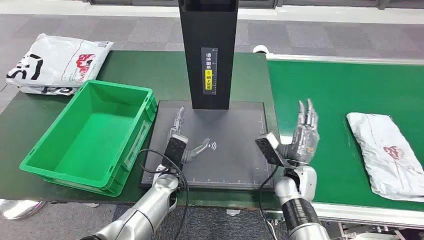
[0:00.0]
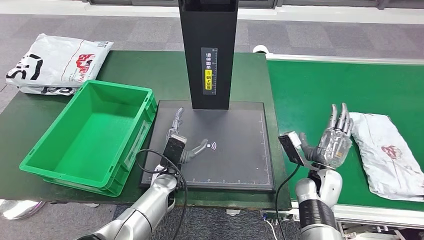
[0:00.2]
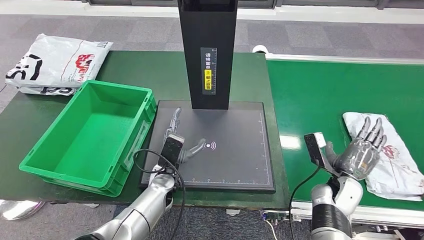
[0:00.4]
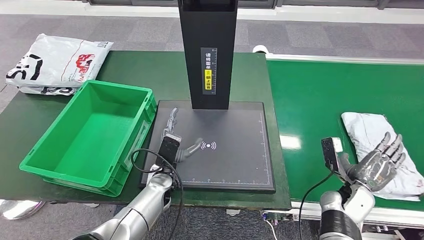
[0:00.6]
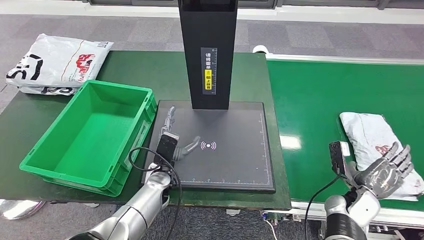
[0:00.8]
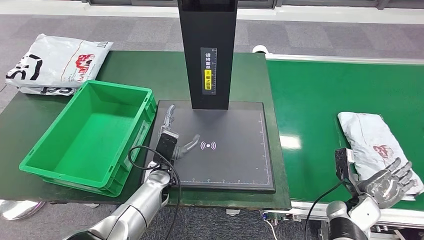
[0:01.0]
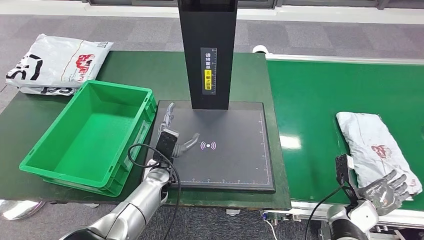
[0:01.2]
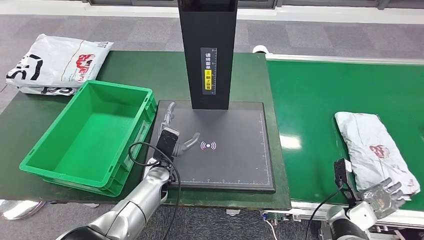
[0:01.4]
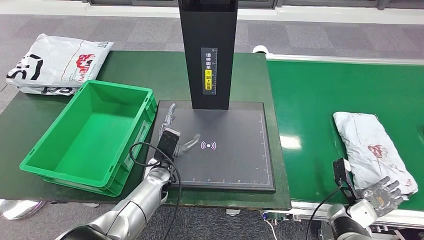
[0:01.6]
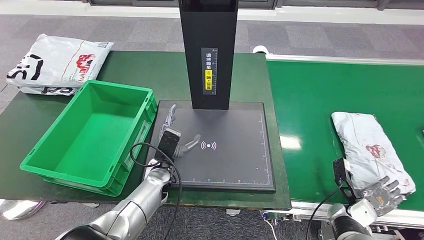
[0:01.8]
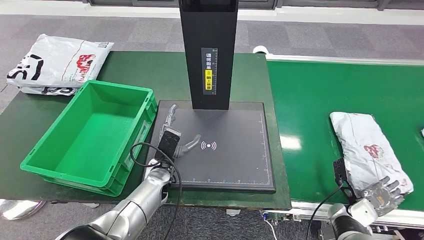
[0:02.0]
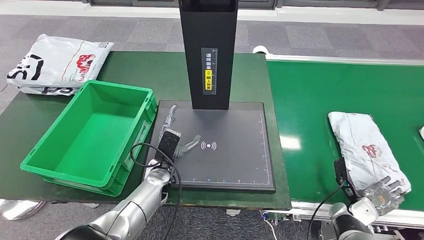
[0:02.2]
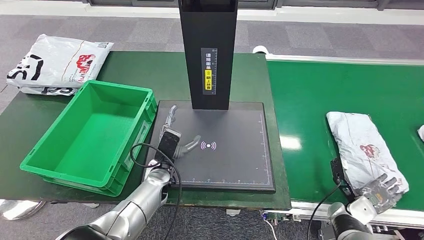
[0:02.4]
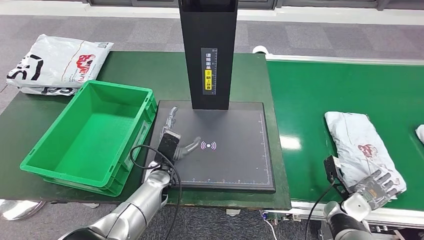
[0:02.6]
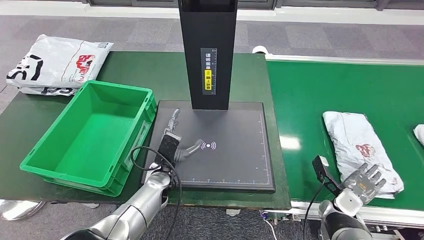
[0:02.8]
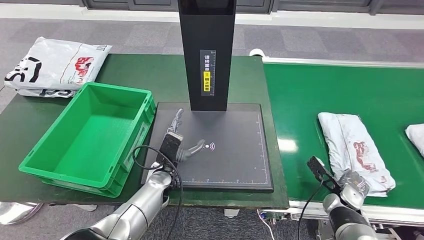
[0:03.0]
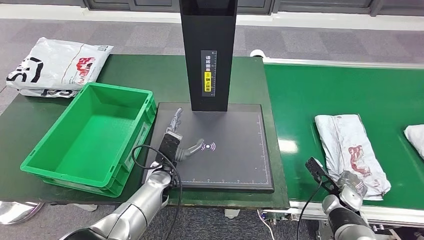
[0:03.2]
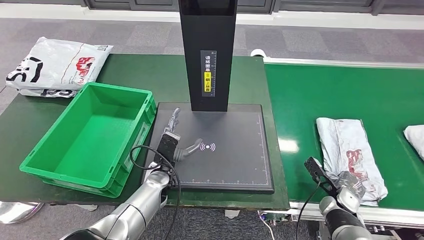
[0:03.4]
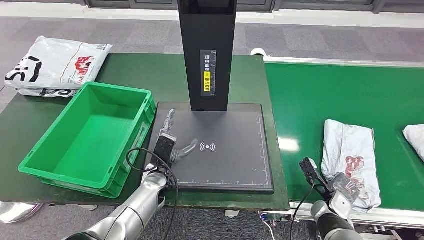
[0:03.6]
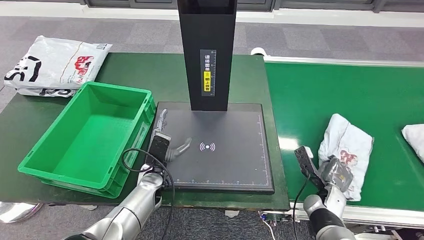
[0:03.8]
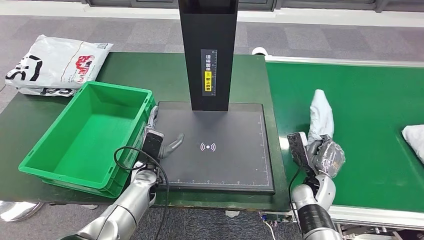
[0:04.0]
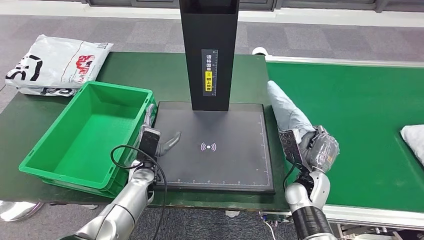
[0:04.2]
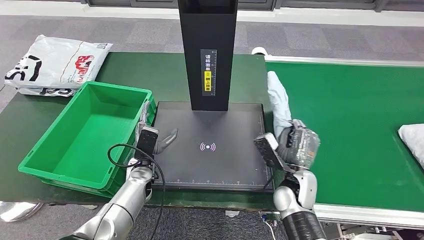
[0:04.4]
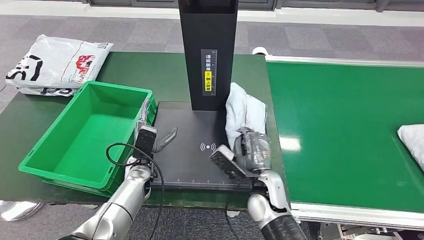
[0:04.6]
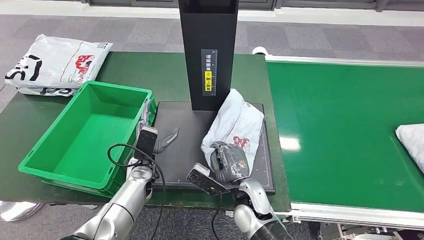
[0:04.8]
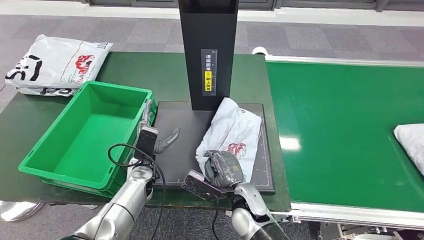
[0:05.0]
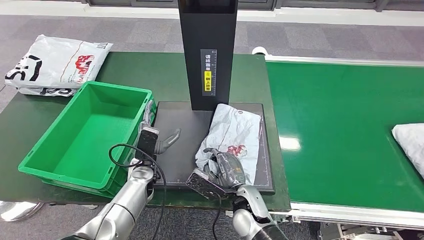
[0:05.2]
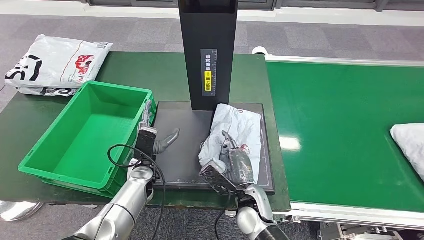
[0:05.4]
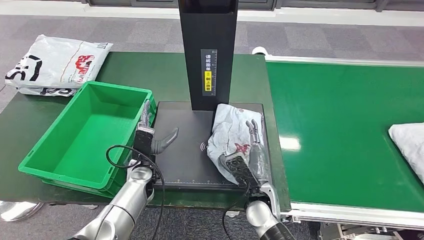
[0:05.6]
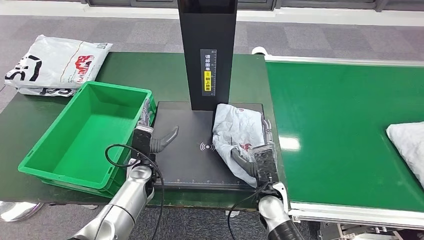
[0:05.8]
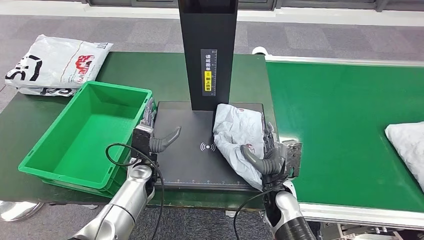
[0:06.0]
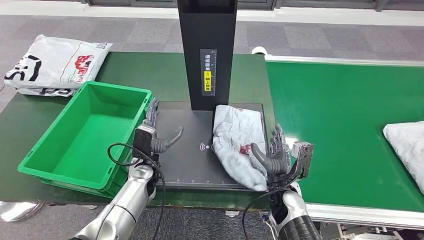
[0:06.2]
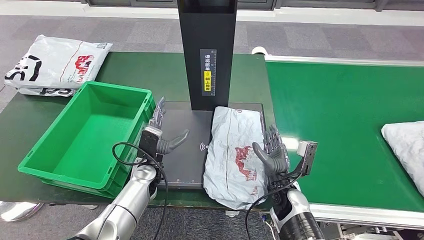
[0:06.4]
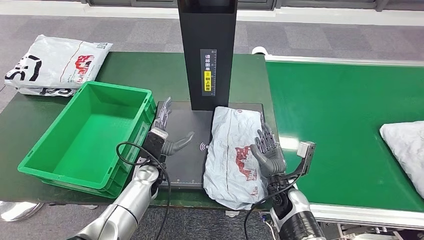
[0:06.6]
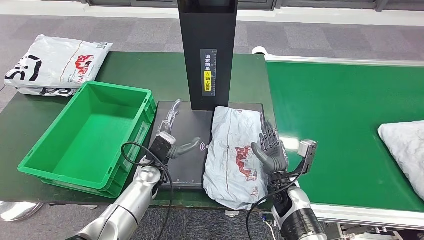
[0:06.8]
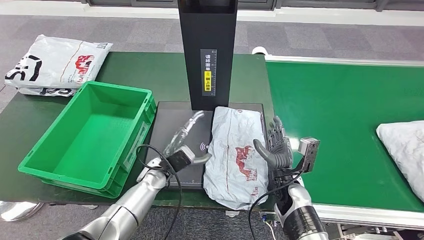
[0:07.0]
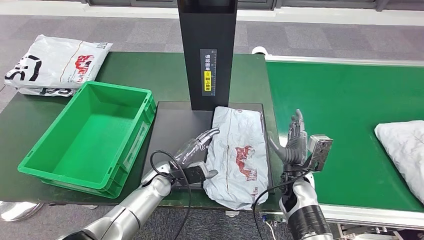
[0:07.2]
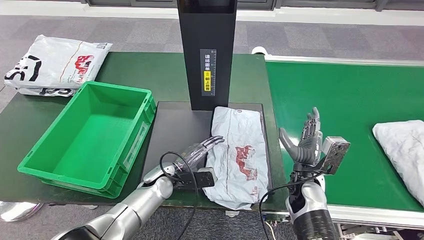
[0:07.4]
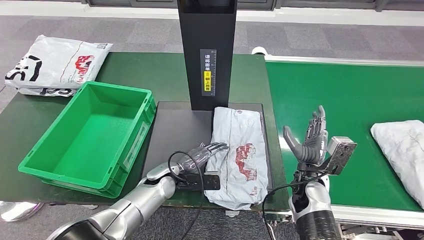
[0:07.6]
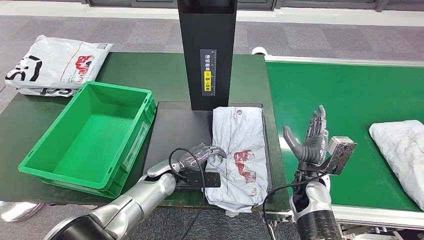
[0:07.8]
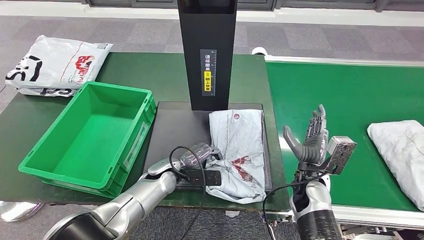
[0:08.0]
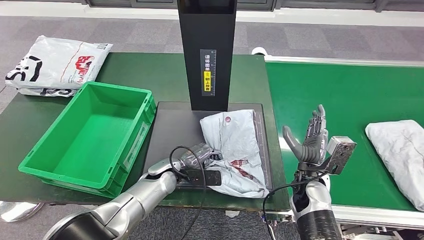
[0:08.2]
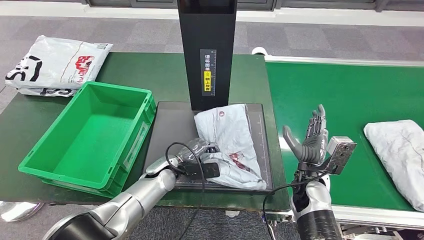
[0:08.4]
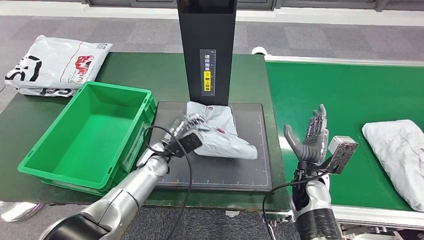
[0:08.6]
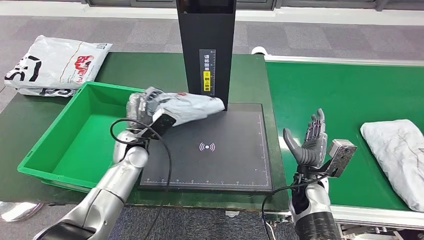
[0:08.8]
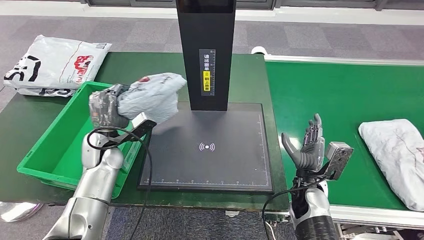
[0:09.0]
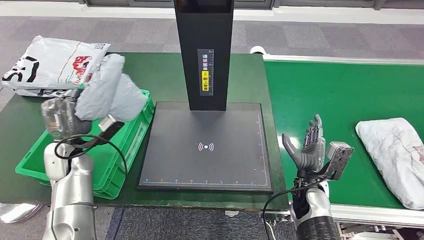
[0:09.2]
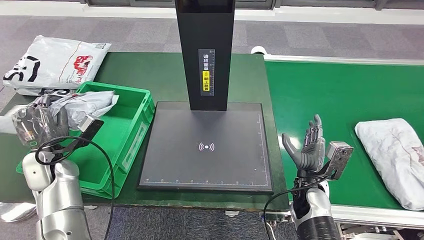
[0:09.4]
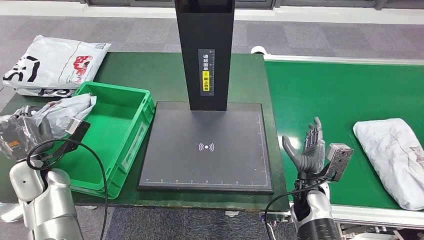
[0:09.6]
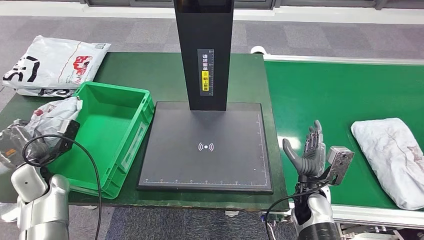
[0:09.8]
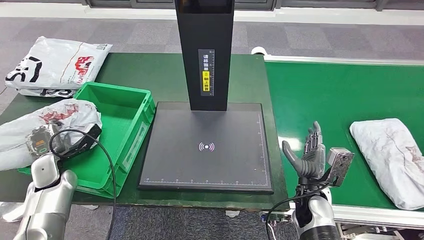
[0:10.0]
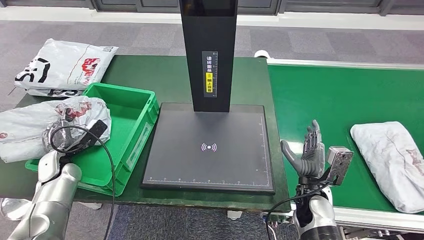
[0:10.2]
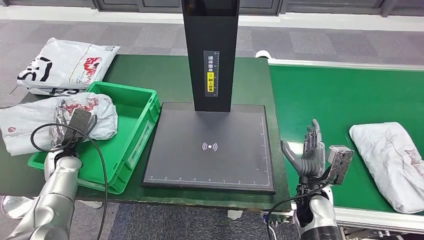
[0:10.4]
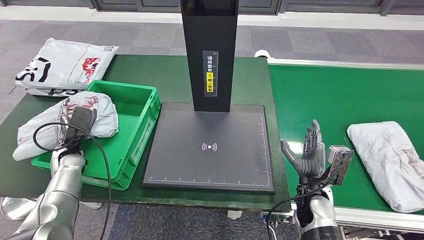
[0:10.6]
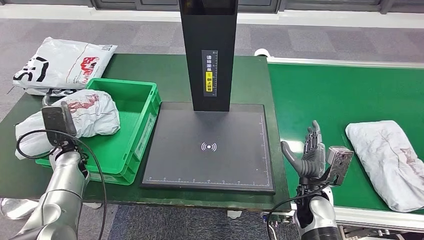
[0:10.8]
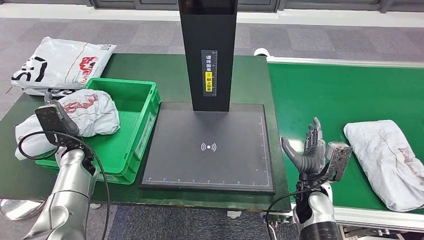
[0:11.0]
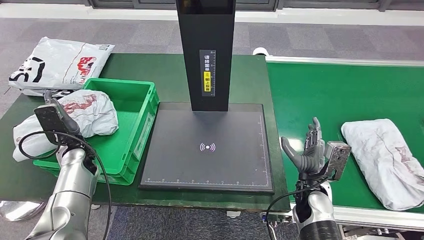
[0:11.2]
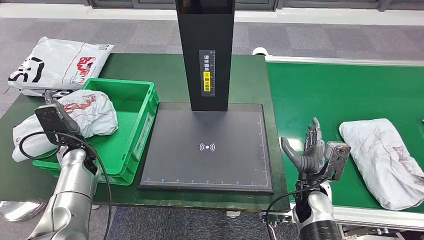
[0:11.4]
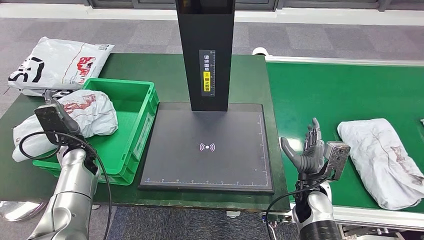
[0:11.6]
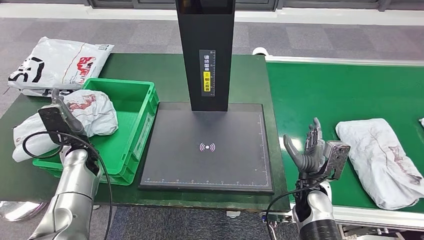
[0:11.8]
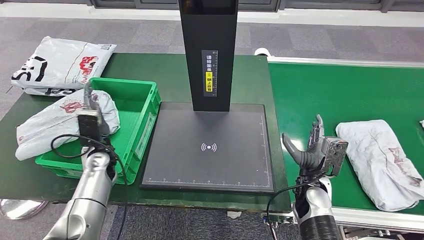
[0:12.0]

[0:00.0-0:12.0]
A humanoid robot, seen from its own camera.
Step, 0:00.0 to 0:04.0: Take the parcel off the conveyor belt.
Step, 0:04.2 to 0:06.2: Place the parcel onto the inbound machine.
Step, 0:06.4 to 0:09.2: Pick up the parcel from the inbound machine.
Step, 0:09.4 to 0:11.2: Put the parcel inside the courier box.
0:04.4 to 0:06.0: The right hand goes to the left and returns, roughly 10 cm each way.
0:06.0 to 0:07.6: Both hands travel together to the right, roughly 5 cm.

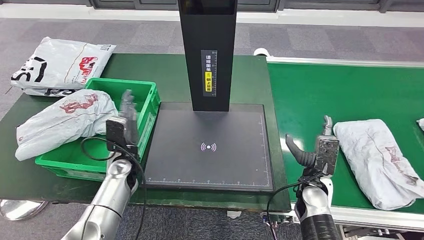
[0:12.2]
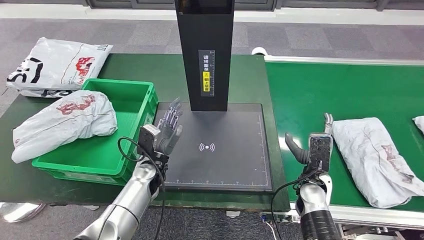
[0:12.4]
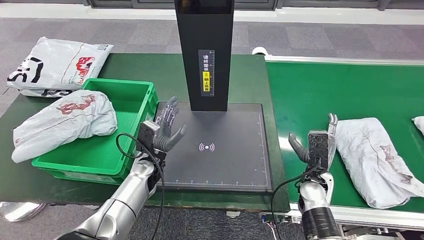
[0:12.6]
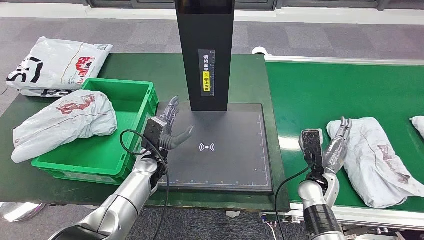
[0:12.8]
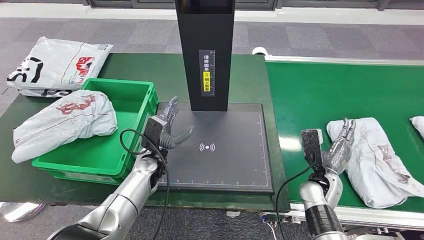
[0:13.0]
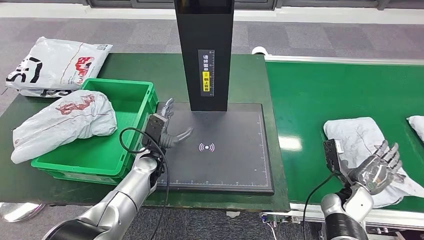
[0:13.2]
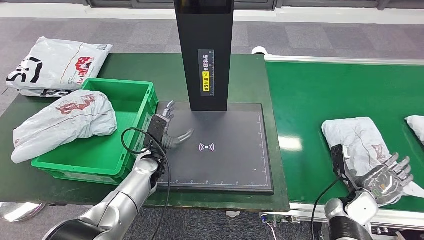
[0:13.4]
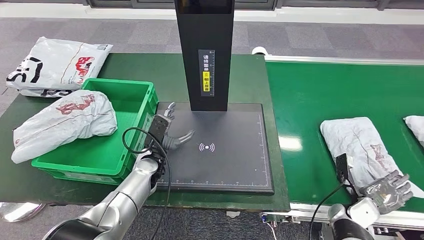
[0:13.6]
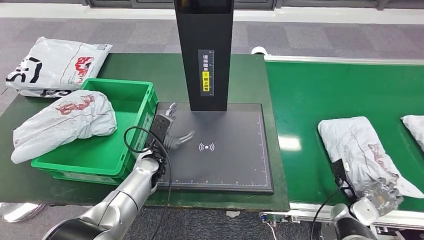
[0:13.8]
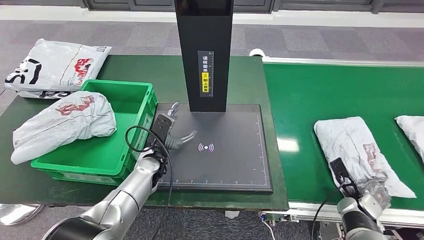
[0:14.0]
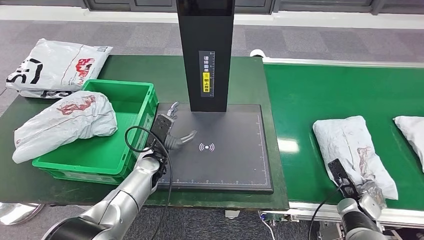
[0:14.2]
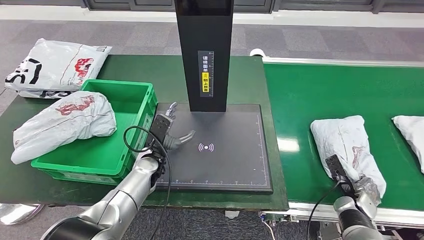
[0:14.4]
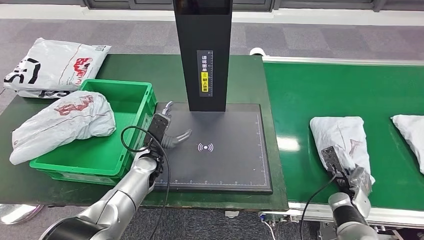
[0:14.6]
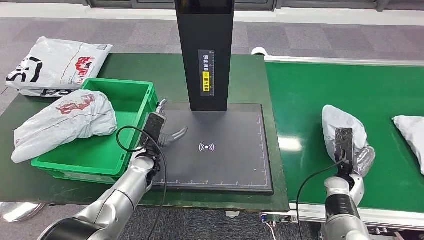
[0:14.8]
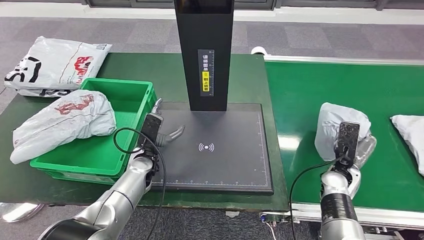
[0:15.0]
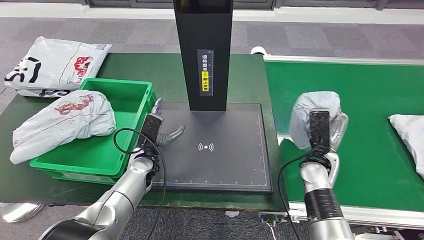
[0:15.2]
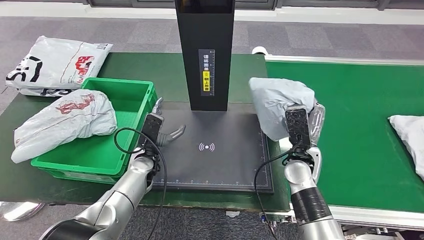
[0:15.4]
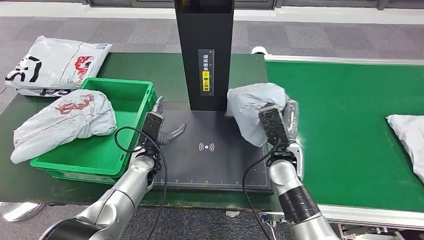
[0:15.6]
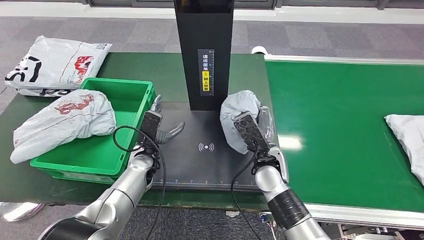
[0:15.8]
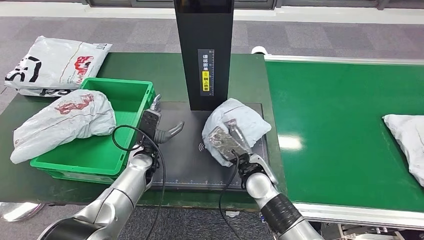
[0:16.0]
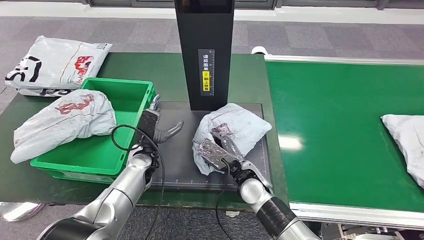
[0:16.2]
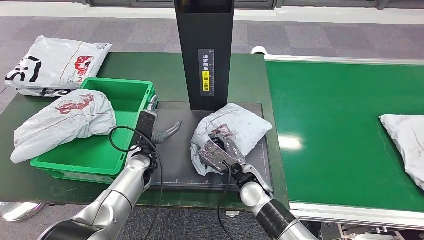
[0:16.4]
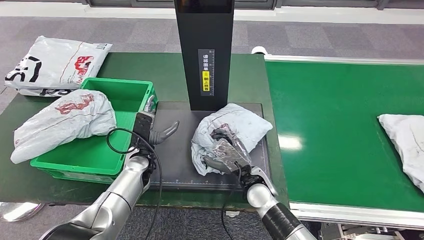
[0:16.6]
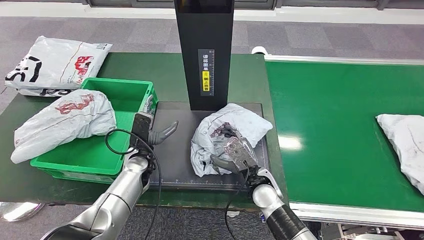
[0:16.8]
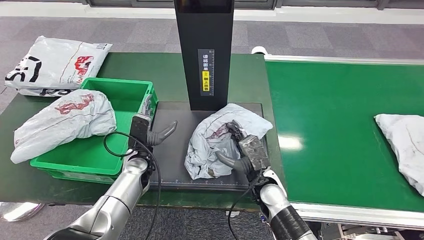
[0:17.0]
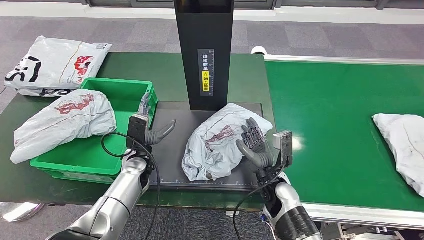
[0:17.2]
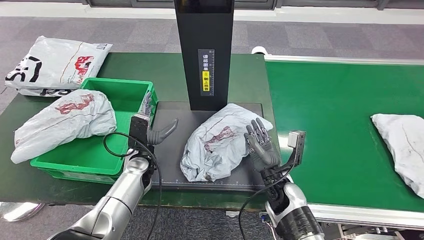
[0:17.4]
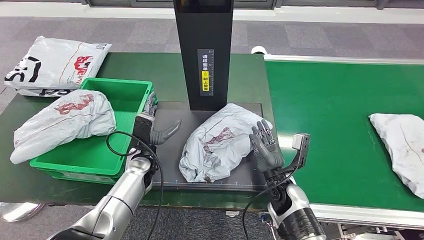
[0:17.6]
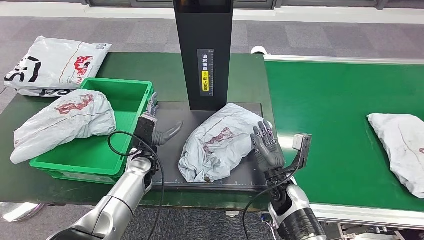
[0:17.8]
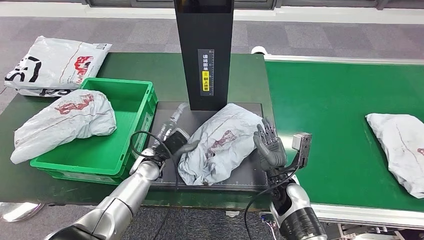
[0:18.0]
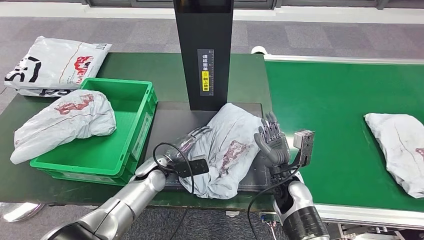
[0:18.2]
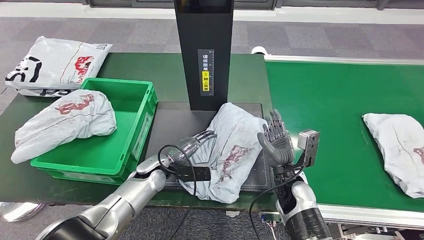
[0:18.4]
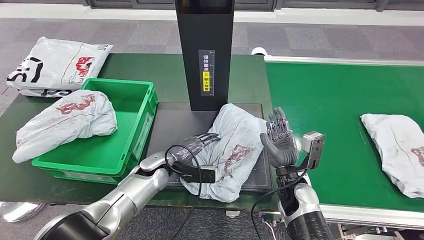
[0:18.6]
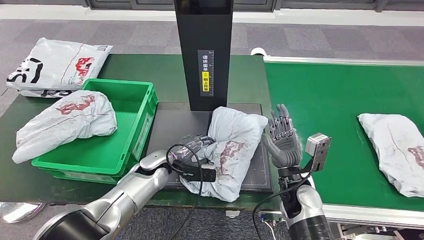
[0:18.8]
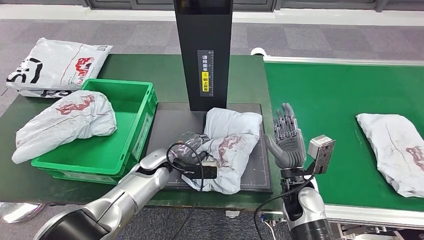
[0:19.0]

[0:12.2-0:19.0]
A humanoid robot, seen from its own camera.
Step, 0:12.2 to 0:15.2: Pick up the parcel from the conveyor belt.
Step, 0:15.4 to 0:17.2: Place the parcel onto the inbound machine.
0:13.6 to 0:15.0: The right hand goes roughly 10 cm upward, forward and to the left.
0:15.0 to 0:16.2: The right hand goes some 25 cm to the left.
0:16.2 to 0:17.6: The right hand moves to the right, about 10 cm.
